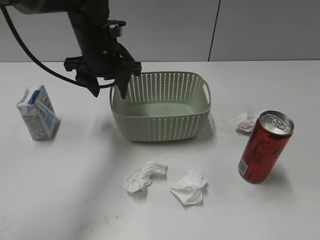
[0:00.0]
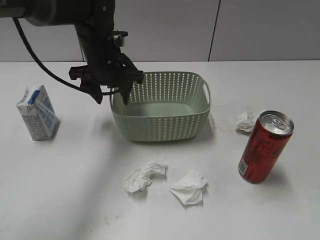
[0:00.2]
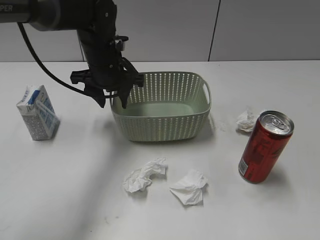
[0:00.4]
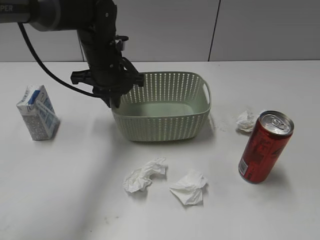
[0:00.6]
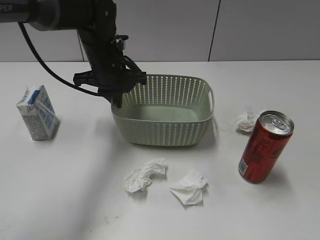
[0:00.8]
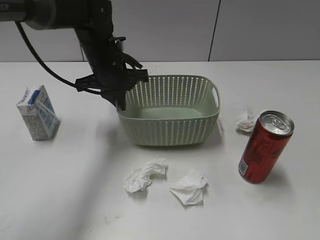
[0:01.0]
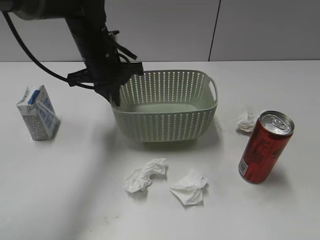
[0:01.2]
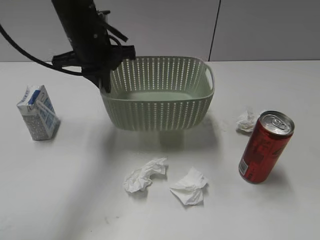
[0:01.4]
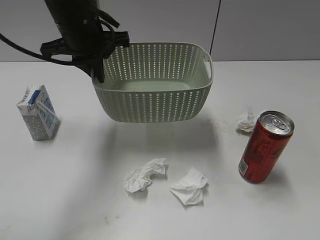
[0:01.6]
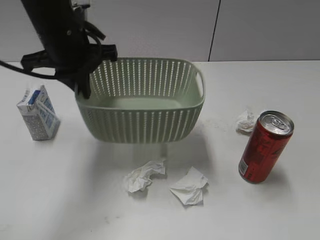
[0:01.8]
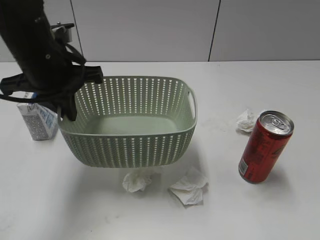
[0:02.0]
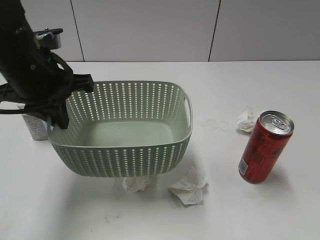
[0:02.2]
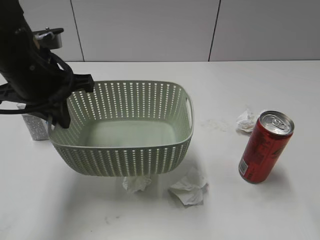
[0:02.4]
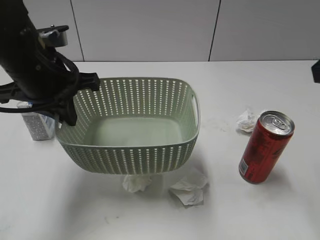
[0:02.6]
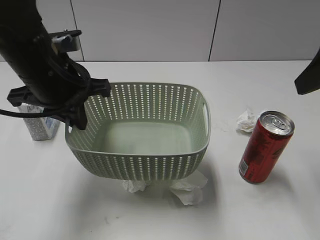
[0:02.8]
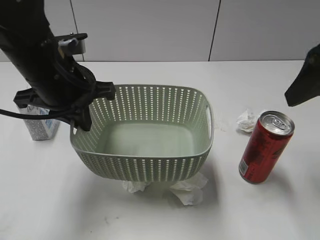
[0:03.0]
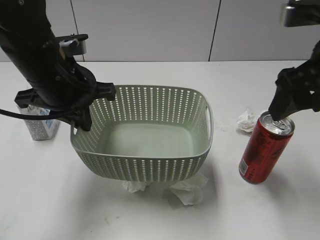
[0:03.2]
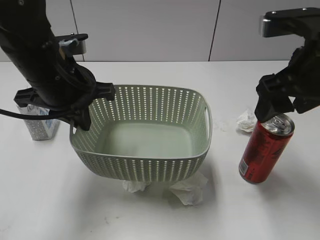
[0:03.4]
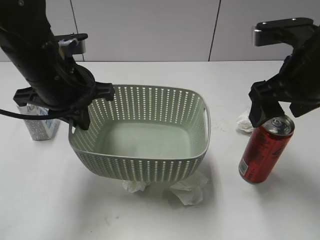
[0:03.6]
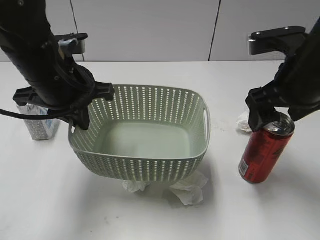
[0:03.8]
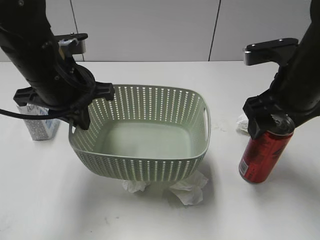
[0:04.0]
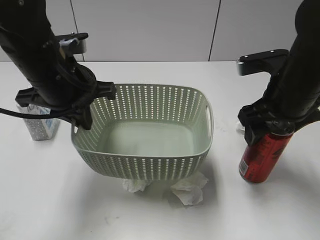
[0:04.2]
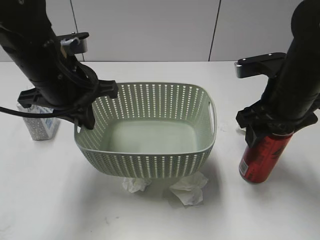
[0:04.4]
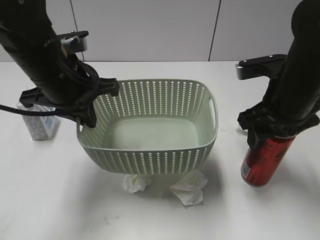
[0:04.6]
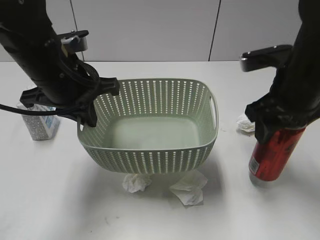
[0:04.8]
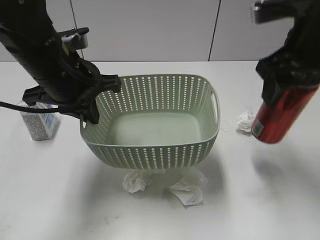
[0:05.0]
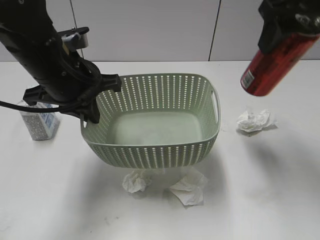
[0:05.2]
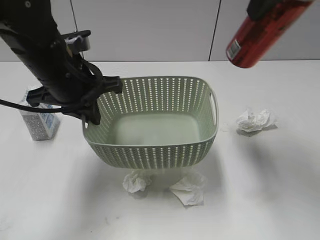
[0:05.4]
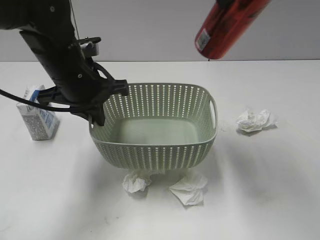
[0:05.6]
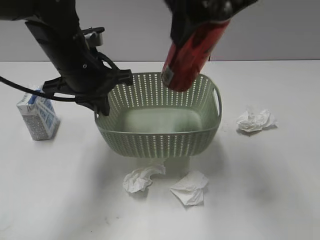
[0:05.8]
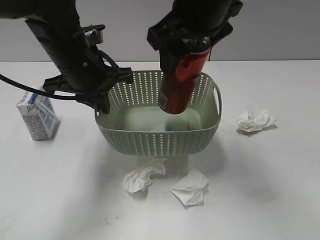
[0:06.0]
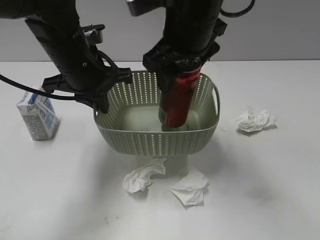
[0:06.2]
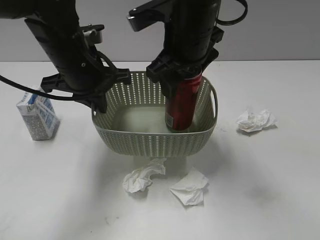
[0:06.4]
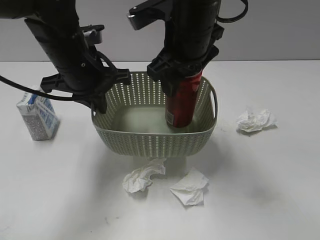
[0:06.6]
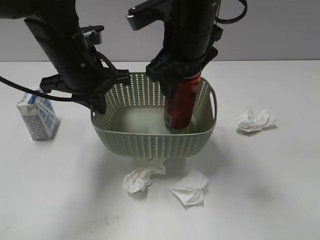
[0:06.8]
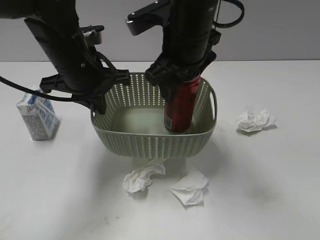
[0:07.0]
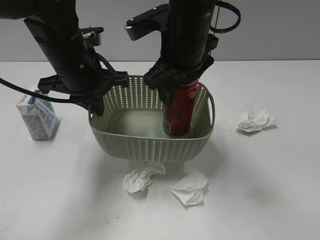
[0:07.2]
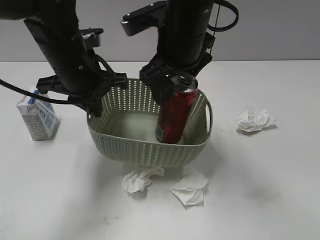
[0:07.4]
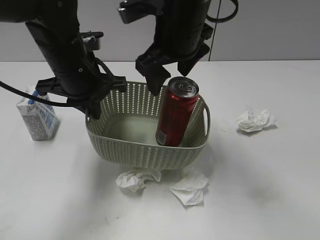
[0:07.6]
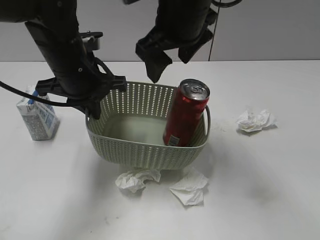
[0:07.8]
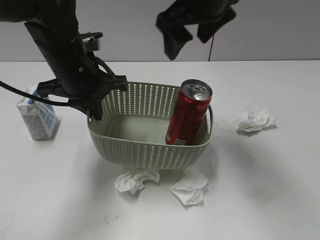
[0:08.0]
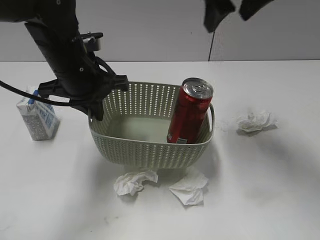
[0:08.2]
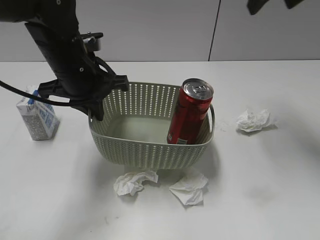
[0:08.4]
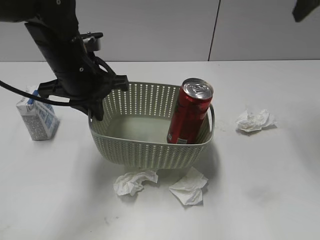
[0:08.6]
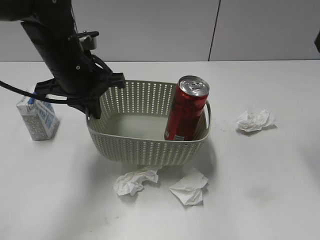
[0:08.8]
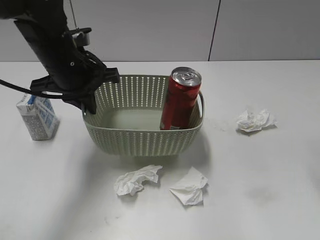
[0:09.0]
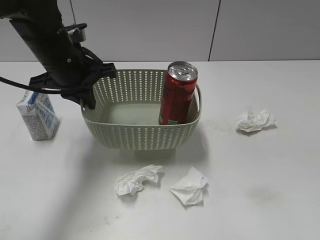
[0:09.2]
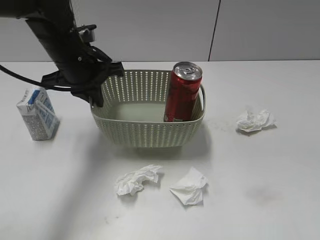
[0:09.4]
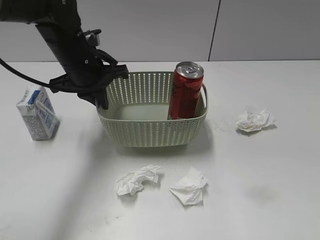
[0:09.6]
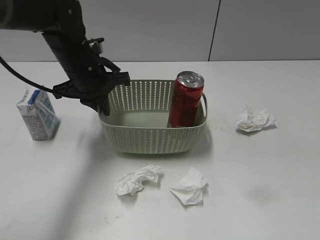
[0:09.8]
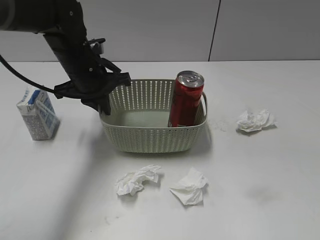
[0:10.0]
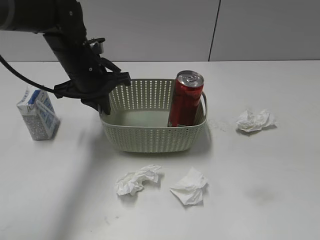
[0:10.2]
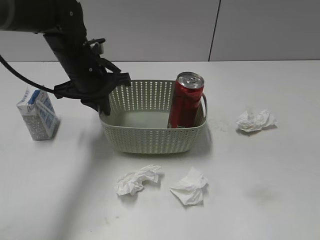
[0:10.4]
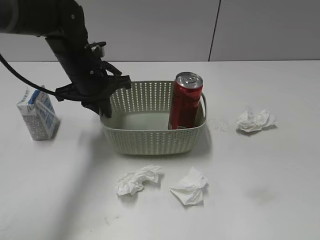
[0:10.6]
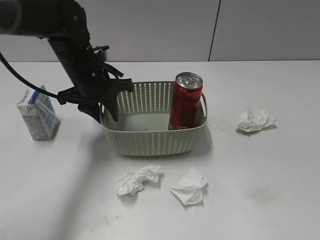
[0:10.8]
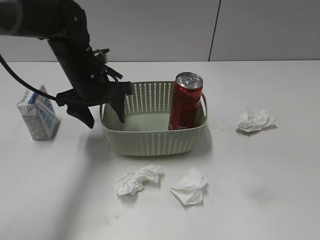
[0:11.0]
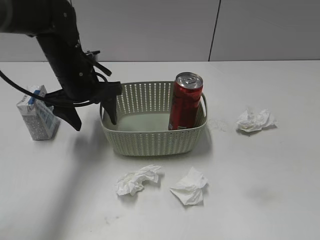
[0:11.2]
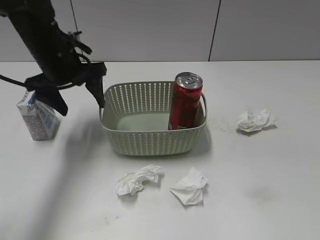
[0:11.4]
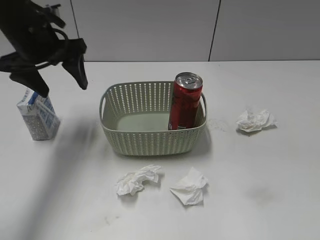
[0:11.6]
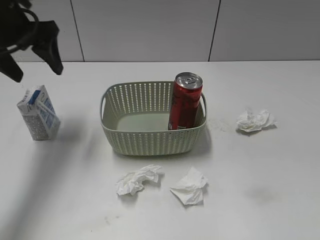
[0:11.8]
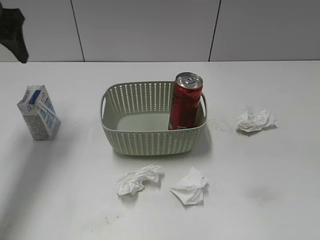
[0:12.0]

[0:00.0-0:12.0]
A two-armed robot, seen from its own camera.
Step, 0:00.8 to 0:02.4: Lift the basket with left gripper.
Step, 0:02.6 to 0:04.6: Grasp the cola can with right gripper.
Step, 0:04.8 to 0:07.4: Place the cola can in the basket with right gripper.
0:00.0 to 0:01.6: The left gripper heads upward, covering approximately 5 cm, and closes up.
0:01.6 to 0:03.0: The left gripper is displaced backward by some 10 cm, while the right gripper is displaced forward by about 25 cm.
0:03.0 to 0:04.4: The right gripper shifts approximately 10 cm downward and to the left, and closes.
0:04.4 to 0:06.0: The right gripper goes about 20 cm to the left and upward.
0:06.0 to 0:07.6: The right gripper changes place by roughly 5 cm, and opens up.
0:07.6 to 0:09.0: The right gripper travels to the right by roughly 25 cm, and closes up.
0:09.0 to 0:10.4: The right gripper is displaced backward by approximately 20 cm; the left gripper moves some 5 cm.
0:10.4 to 0:12.0: The left gripper shifts about 20 cm to the left and upward, and opens its fingers.

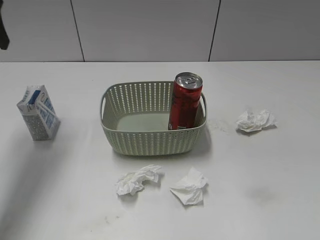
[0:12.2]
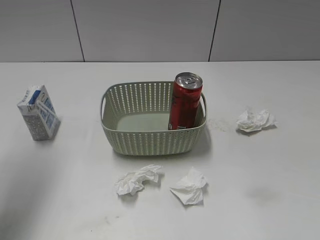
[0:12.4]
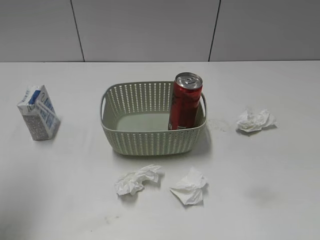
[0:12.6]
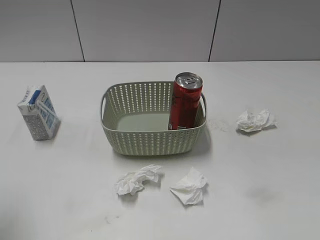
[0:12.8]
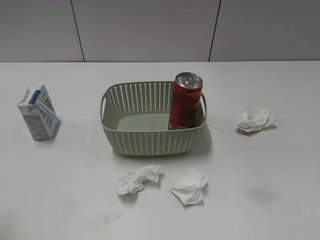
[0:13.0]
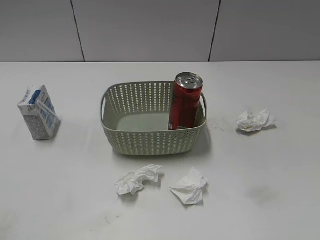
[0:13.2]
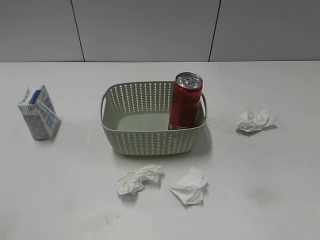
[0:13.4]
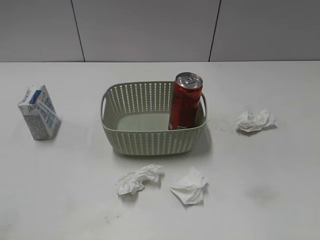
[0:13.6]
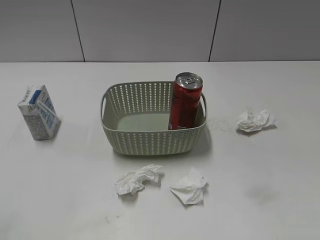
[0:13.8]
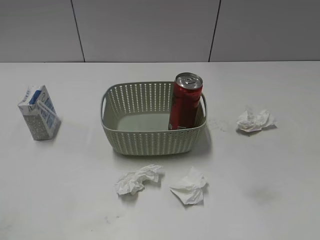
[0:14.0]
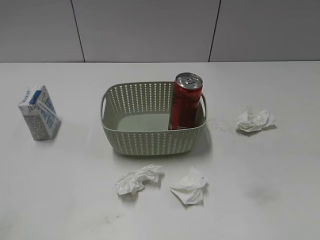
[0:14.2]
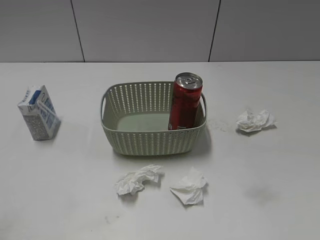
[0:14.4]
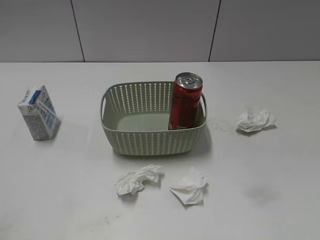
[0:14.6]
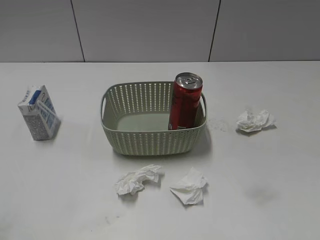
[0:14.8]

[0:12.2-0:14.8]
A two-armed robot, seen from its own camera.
0:12.2 to 0:13.4: The left gripper travels backward by some 30 cm.

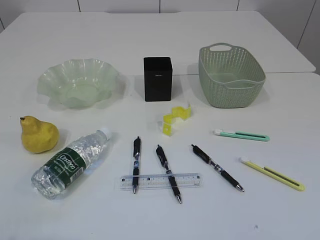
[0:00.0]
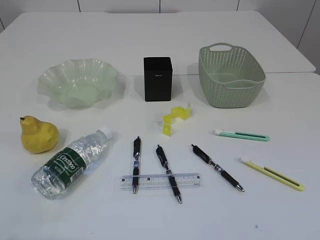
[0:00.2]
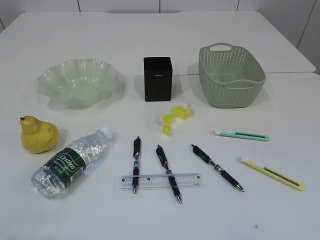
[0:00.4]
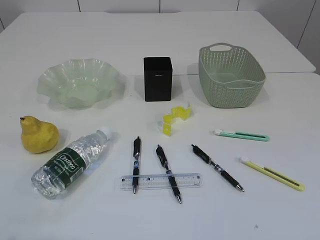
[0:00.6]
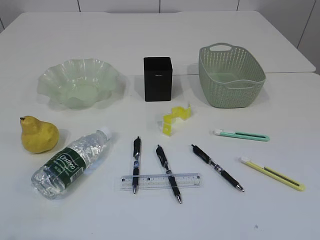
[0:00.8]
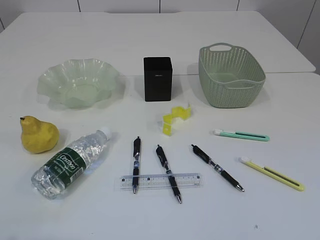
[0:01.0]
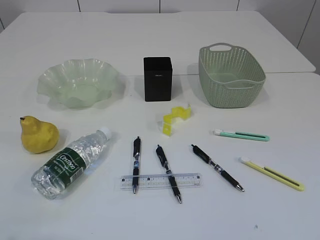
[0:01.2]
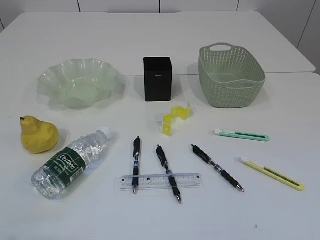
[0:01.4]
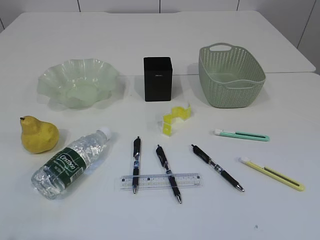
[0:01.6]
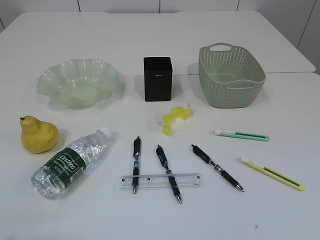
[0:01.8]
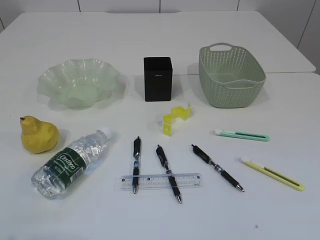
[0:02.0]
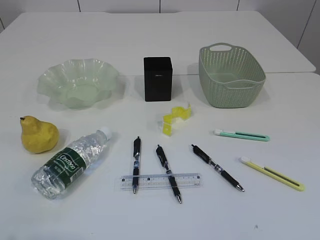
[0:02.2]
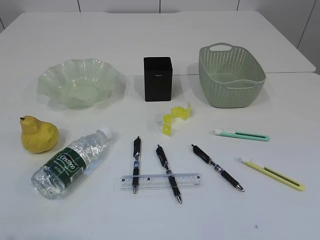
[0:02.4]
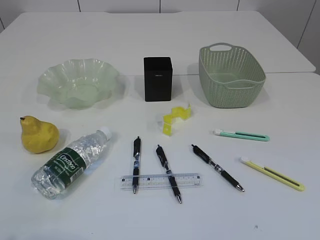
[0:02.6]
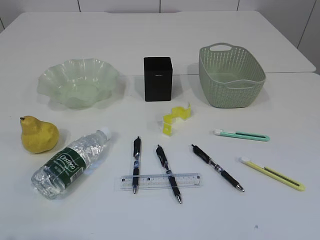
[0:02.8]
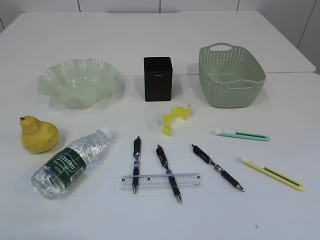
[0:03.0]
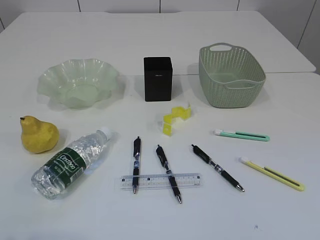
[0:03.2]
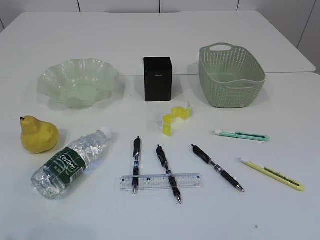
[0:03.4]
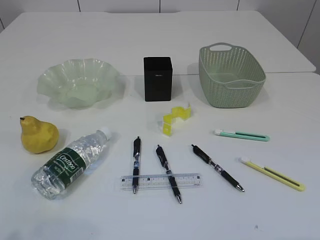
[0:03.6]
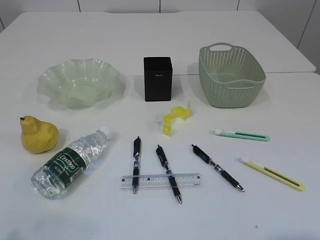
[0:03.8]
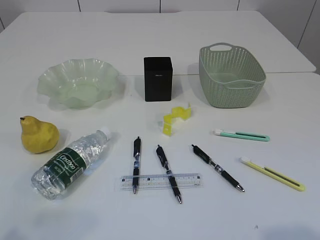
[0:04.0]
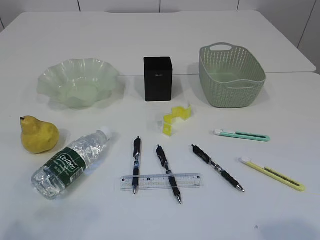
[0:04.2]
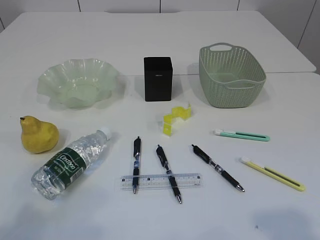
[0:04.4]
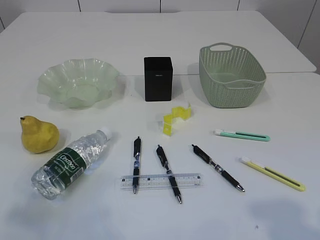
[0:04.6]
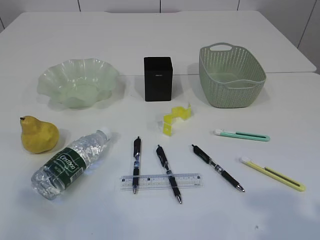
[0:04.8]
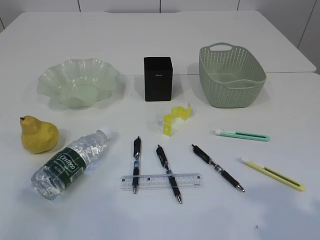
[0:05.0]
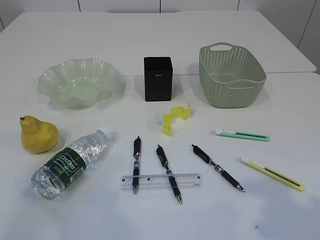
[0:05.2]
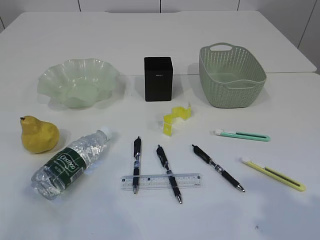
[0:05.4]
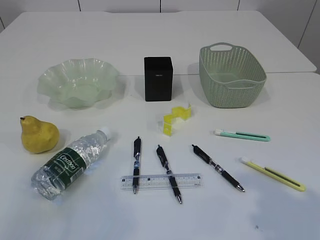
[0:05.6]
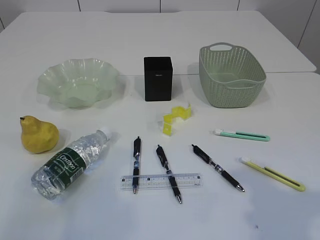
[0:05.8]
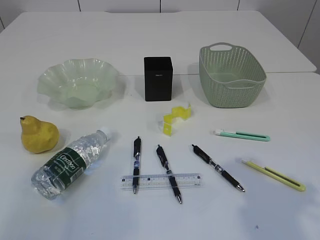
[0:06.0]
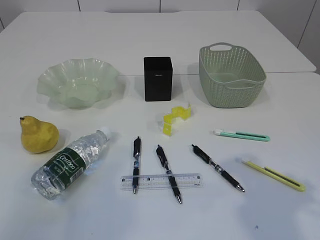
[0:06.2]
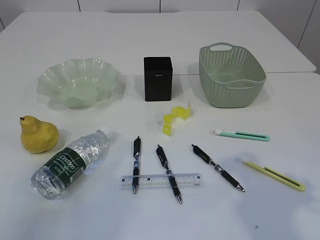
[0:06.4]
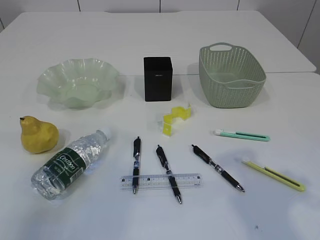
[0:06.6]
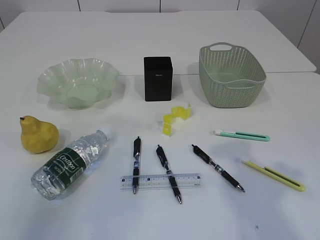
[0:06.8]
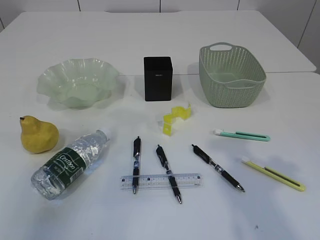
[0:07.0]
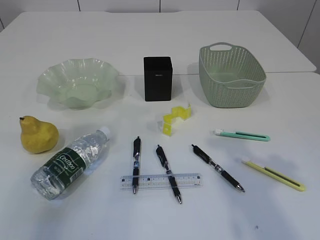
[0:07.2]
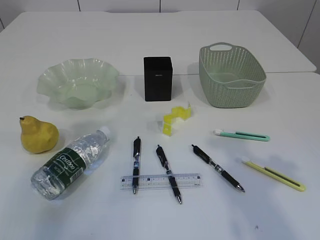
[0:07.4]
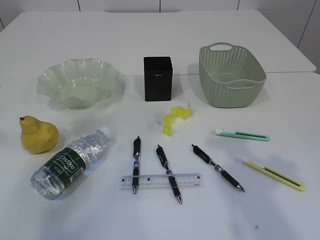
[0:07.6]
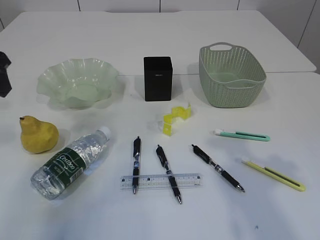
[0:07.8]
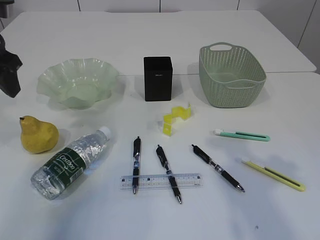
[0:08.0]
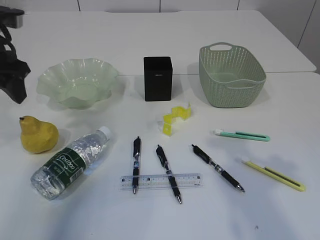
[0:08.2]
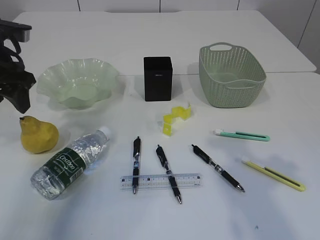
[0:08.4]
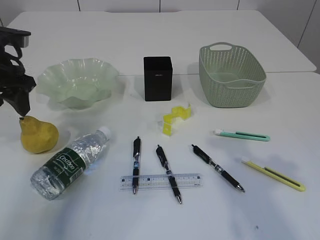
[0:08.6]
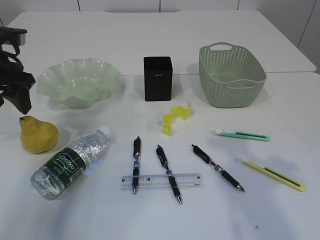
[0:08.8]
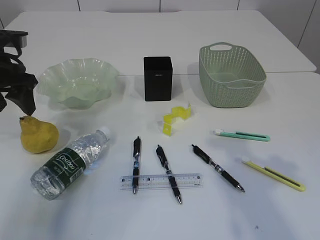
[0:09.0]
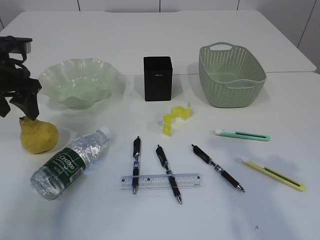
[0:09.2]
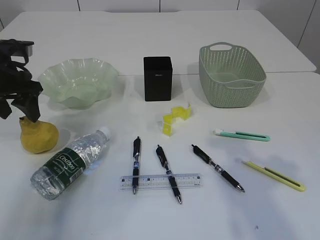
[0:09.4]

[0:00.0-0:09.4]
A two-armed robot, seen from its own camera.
0:03.2 to 0:04.8: The left gripper goes about 10 cm forward and upward. Meanwhile the right gripper travels forward by some 10 cm.
0:06.2 to 0:07.8: The left gripper shifts approximately 15 cm forward.
0:07.8 to 0:09.4: The left gripper moves downward and forward, roughly 10 cm.
